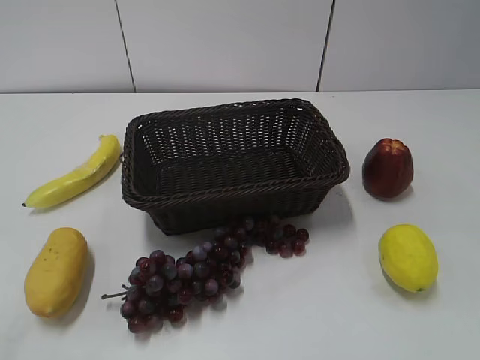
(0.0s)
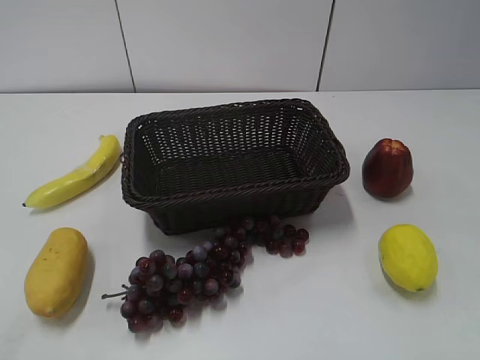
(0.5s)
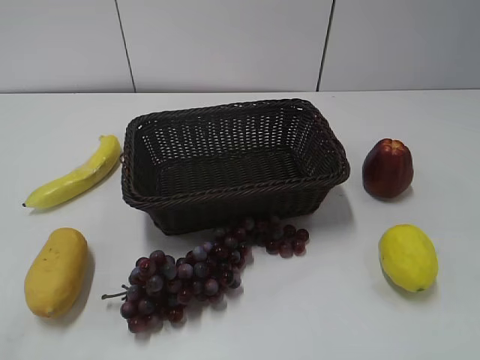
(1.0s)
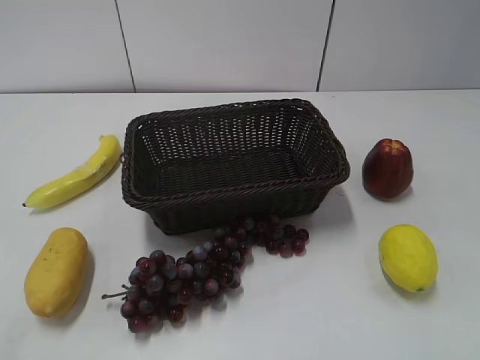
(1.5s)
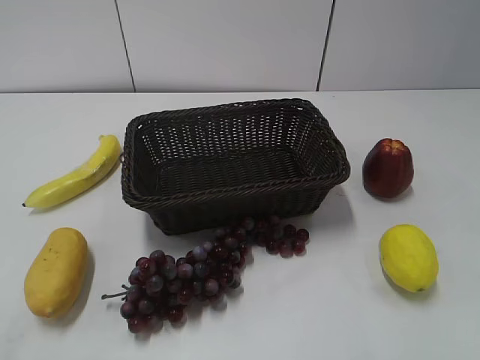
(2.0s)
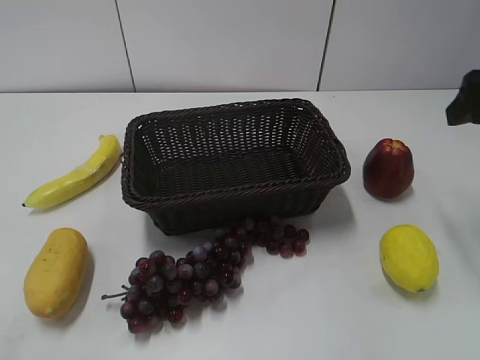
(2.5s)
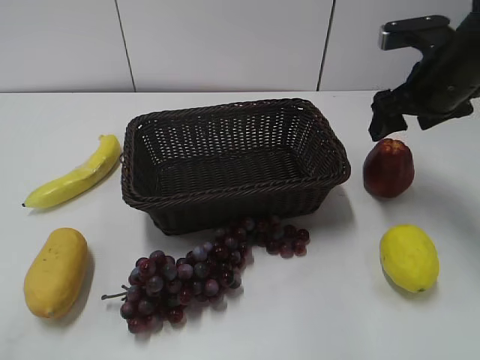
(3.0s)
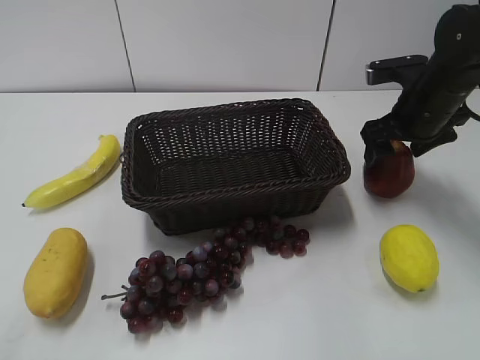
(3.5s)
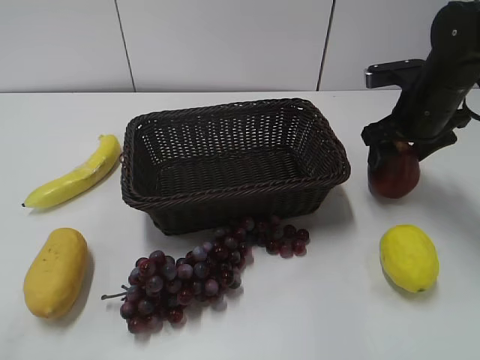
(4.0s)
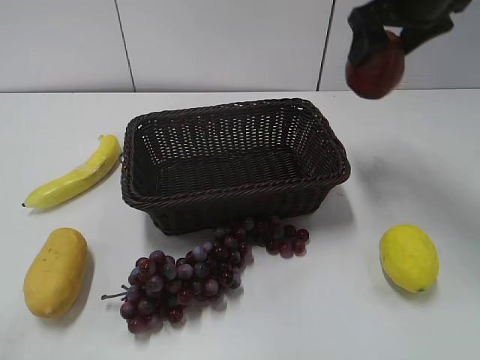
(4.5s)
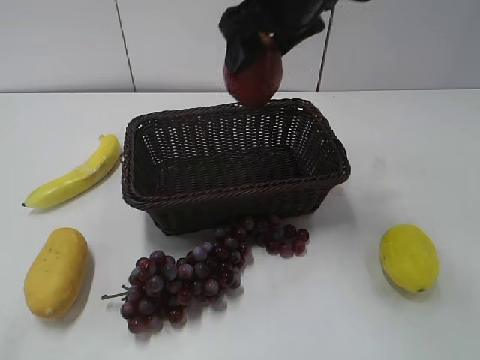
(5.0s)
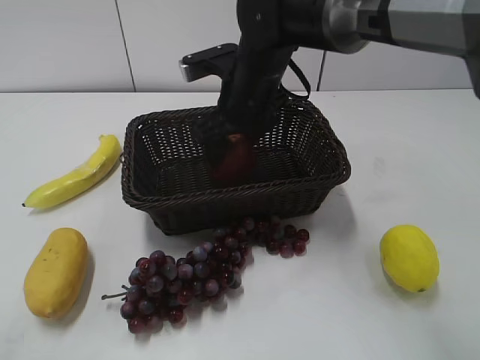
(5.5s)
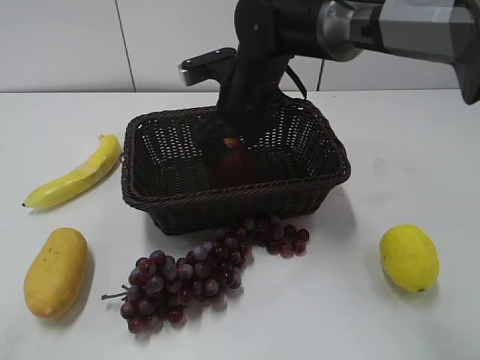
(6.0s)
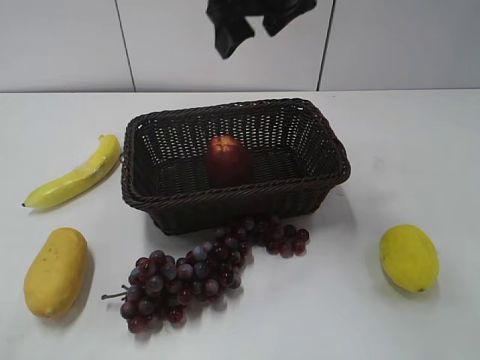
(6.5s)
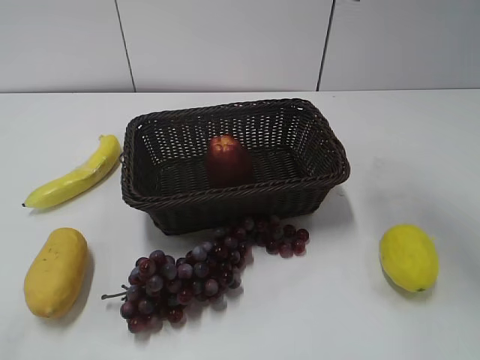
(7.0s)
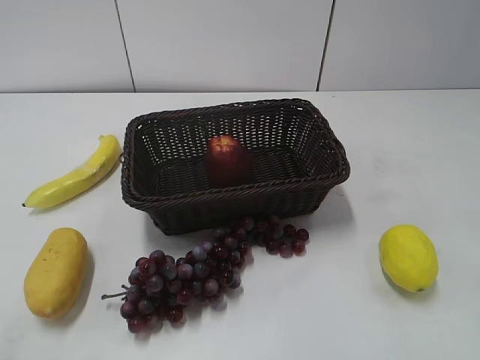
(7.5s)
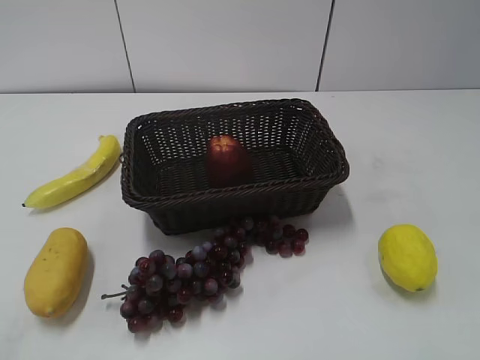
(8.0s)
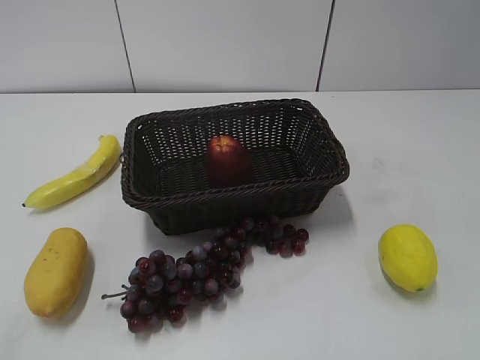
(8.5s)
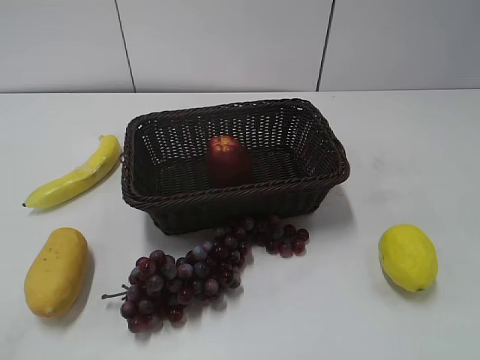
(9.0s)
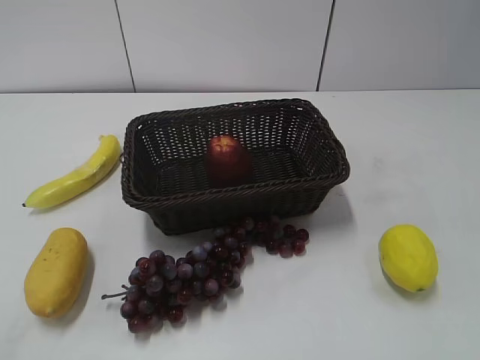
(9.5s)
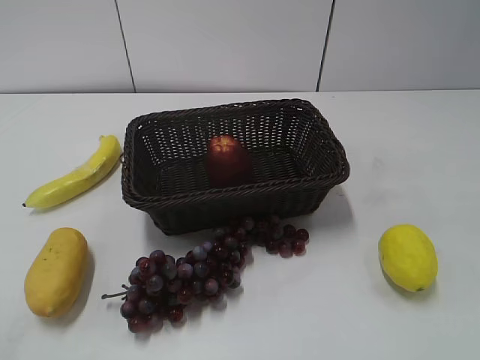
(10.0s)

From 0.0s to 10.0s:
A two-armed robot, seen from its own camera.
Step, from 2.5s to 3.5s: Grasp the apple with right gripper.
Step, from 4.0s to 5.5s: Place the apple in the basket with right gripper.
From 2.0s to 4.0s: The right gripper is displaced forward and downward by some 30 cm, and closes its fingers.
From 4.0s to 6.0s: The right gripper is displaced to the left by approximately 20 cm, and opens.
From 6.0s to 8.0s: The right gripper heads backward, to the right and upward, covering some 50 cm, and closes.
